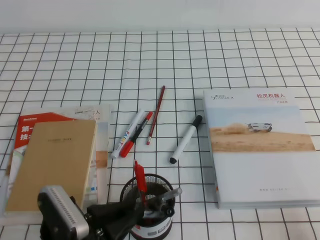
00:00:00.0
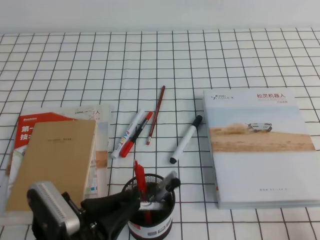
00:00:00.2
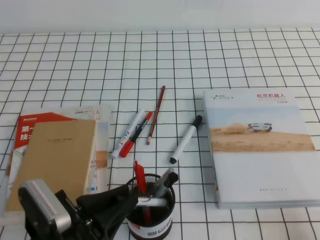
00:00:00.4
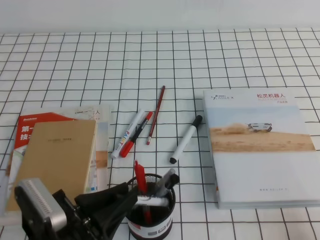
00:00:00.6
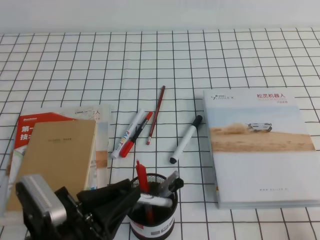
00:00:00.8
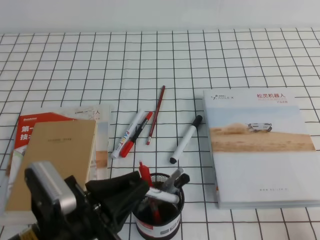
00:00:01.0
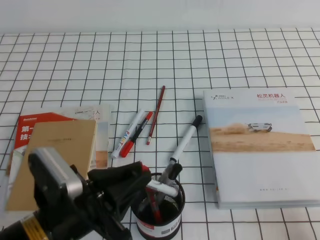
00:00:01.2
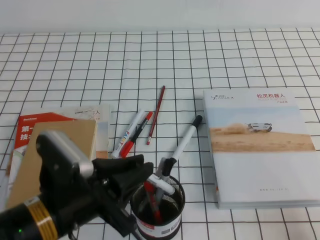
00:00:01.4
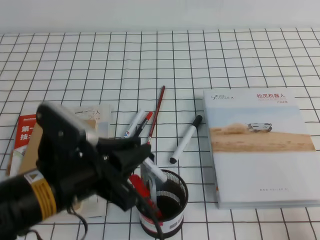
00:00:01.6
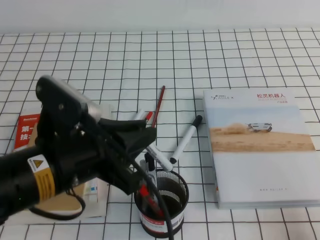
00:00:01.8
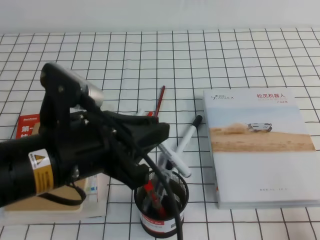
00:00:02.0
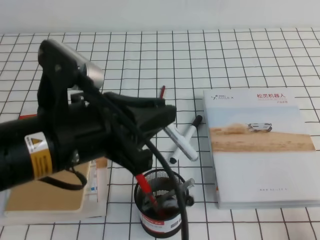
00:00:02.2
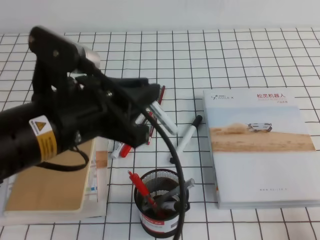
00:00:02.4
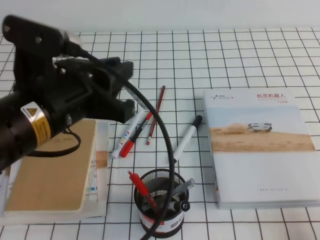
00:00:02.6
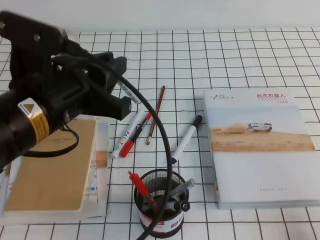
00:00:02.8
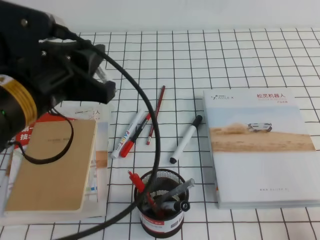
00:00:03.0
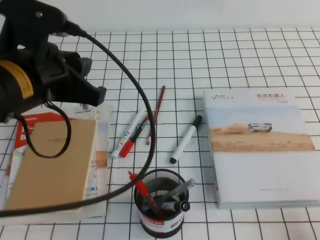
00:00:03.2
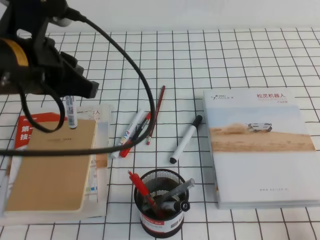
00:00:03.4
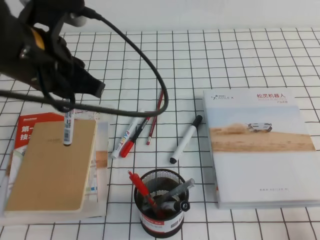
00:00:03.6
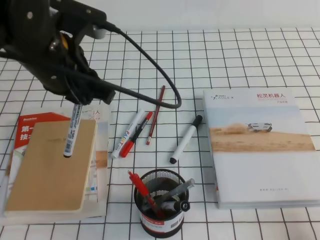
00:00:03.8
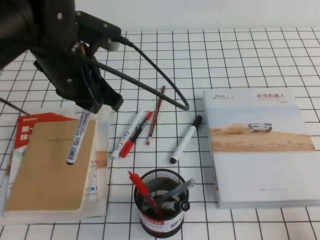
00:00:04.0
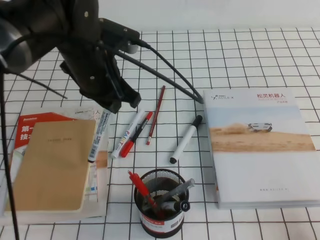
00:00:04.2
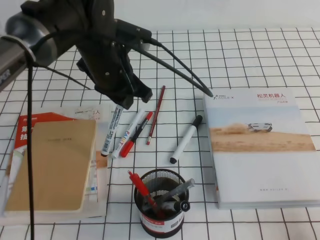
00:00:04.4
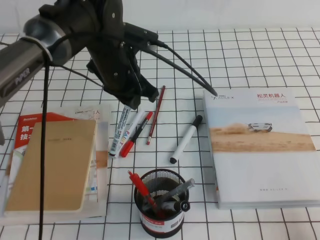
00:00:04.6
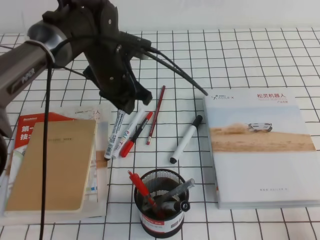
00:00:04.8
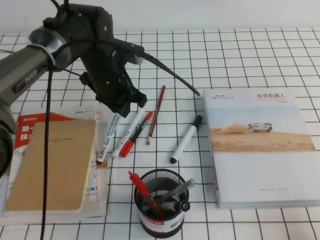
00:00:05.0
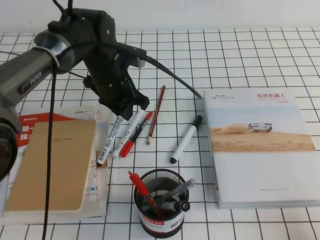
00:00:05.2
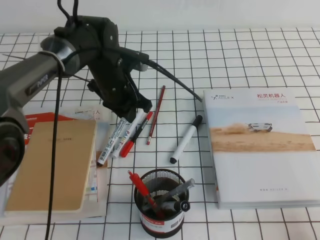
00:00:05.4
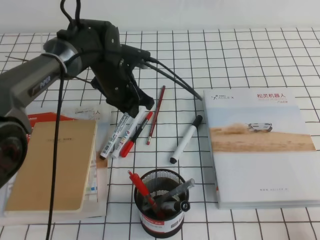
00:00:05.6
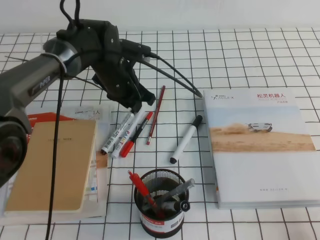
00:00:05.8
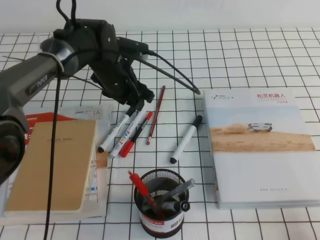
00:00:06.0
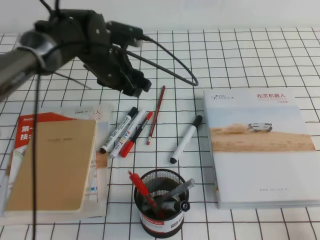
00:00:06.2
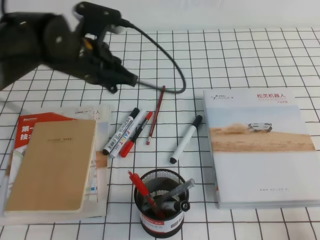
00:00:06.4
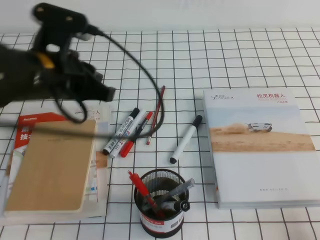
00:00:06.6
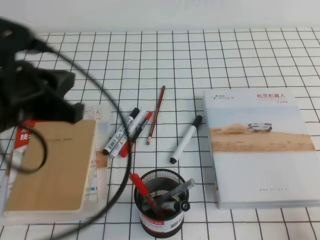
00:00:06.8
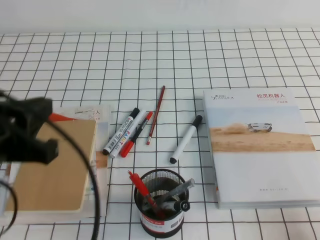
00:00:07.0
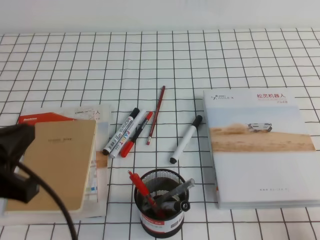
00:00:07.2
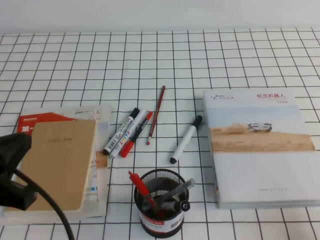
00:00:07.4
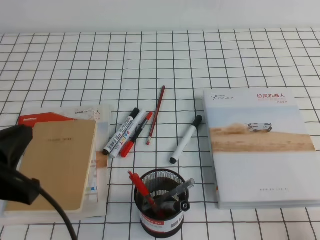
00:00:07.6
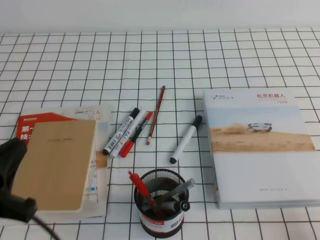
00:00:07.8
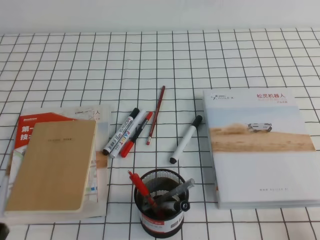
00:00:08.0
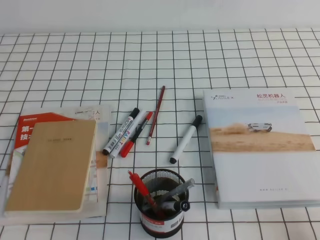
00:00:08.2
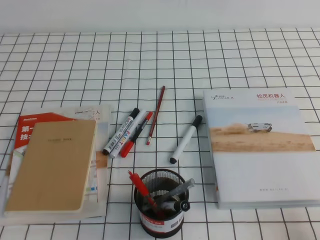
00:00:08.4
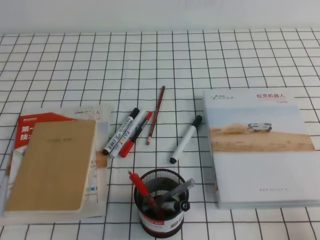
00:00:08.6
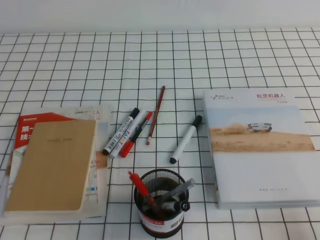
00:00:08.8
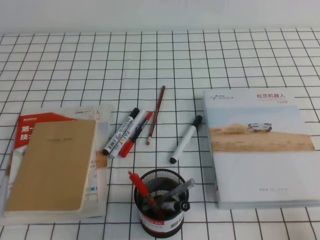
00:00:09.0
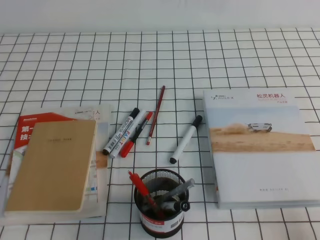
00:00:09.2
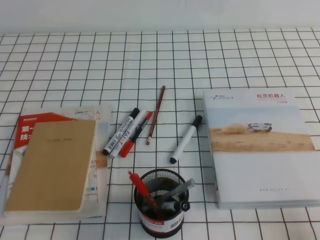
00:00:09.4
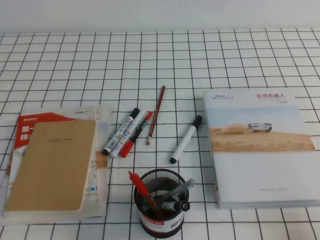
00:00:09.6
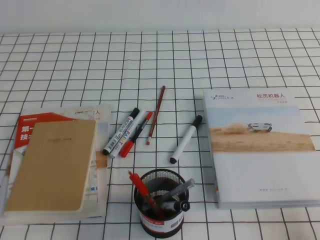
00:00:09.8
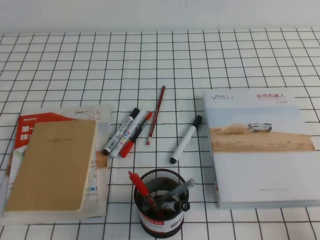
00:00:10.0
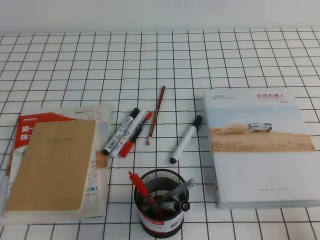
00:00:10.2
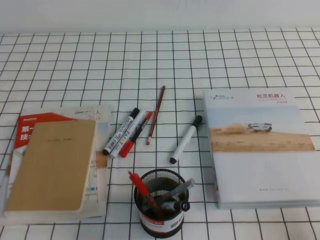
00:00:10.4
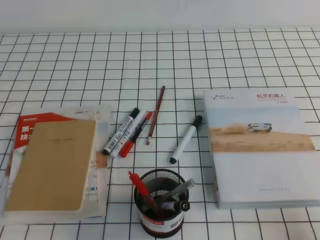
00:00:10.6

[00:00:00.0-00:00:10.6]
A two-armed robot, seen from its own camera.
Step, 00:00:00.0 to 00:00:10.6: Pick up the pen from the pen holder.
00:00:00.0 to 00:00:01.6: The left gripper is displaced upward by approximately 10 cm.
00:00:01.6 to 00:00:03.0: The left gripper heads upward and forward, covering approximately 10 cm.
00:00:03.0 to 00:00:04.6: The left gripper is displaced forward, downward and to the right by roughly 20 cm.
00:00:04.6 to 00:00:06.0: The left gripper moves downward and forward, some 10 cm, and opens its fingers.
00:00:06.0 to 00:00:07.6: The left gripper shifts roughly 35 cm backward and to the left, and closes its fingers.
00:00:07.6 to 00:00:09.0: The left gripper travels downward and backward by about 15 cm.
00:00:09.0 to 00:00:10.6: Both grippers stay put.

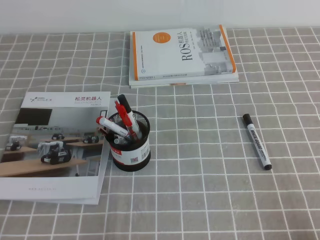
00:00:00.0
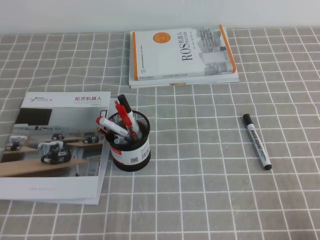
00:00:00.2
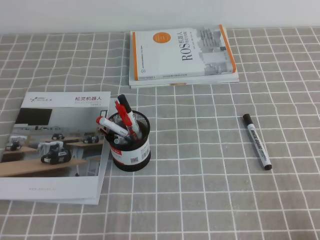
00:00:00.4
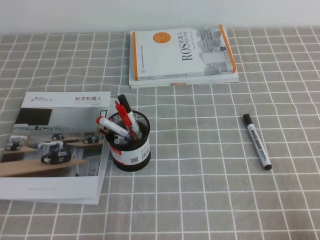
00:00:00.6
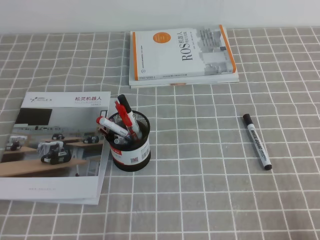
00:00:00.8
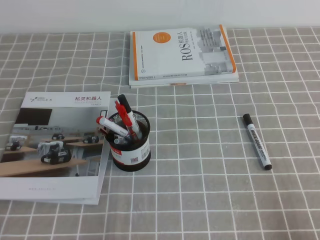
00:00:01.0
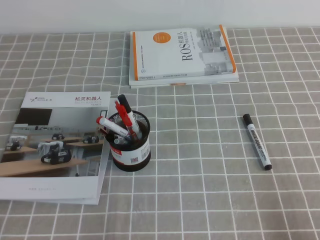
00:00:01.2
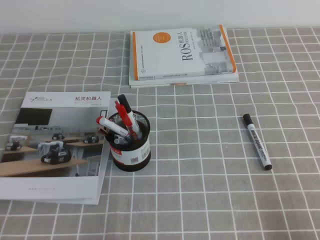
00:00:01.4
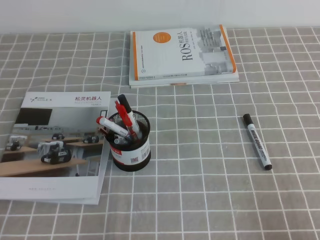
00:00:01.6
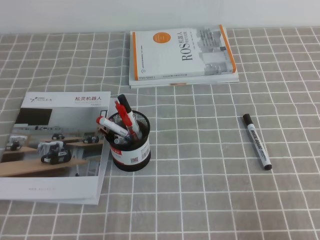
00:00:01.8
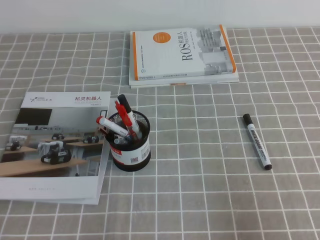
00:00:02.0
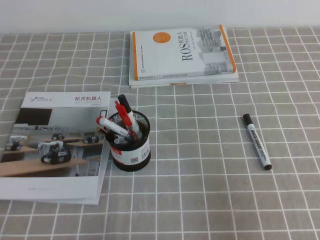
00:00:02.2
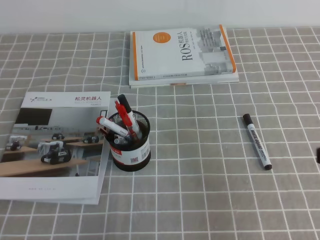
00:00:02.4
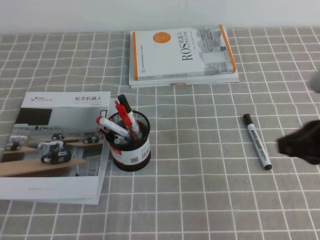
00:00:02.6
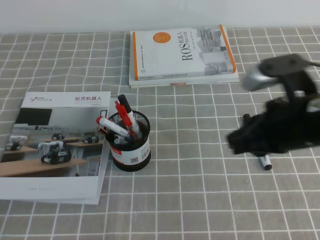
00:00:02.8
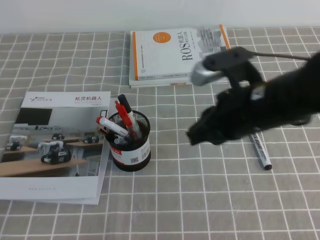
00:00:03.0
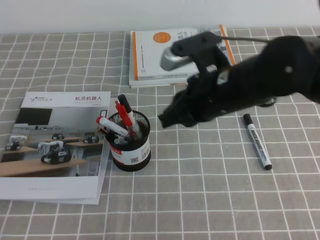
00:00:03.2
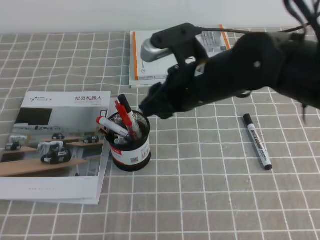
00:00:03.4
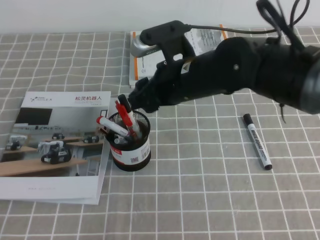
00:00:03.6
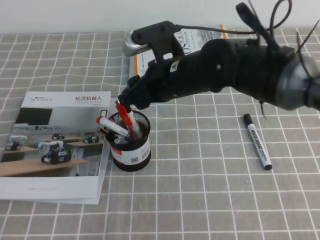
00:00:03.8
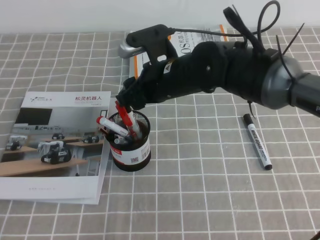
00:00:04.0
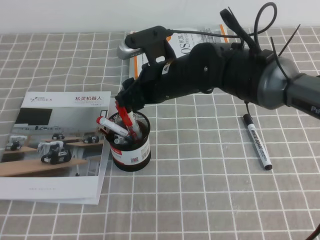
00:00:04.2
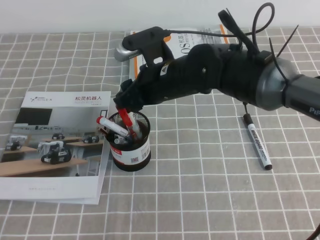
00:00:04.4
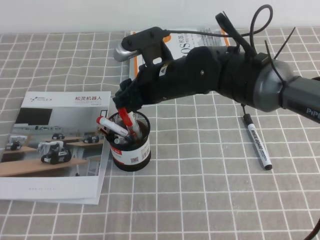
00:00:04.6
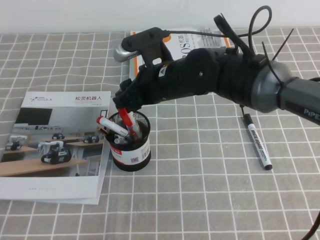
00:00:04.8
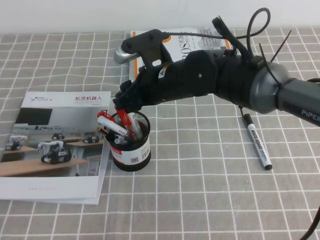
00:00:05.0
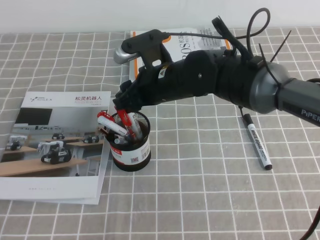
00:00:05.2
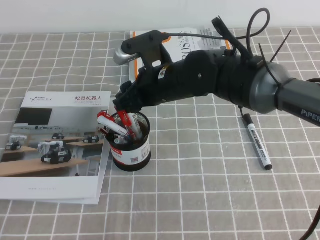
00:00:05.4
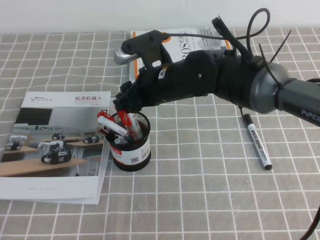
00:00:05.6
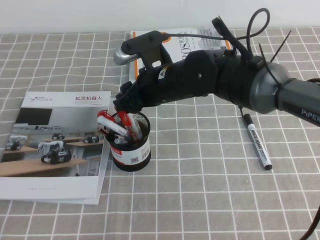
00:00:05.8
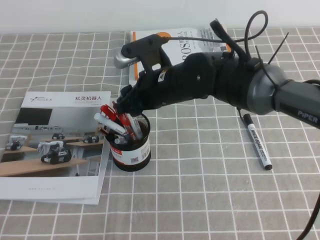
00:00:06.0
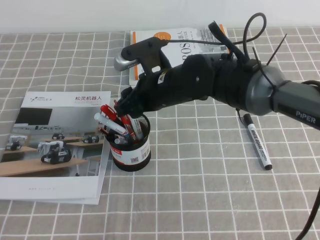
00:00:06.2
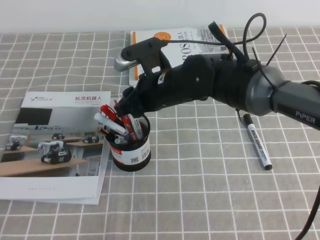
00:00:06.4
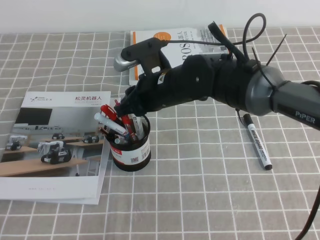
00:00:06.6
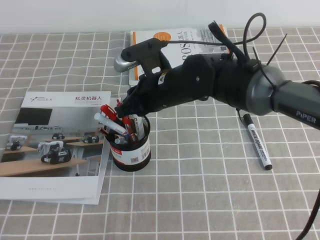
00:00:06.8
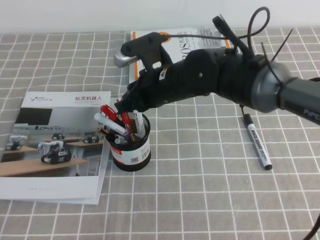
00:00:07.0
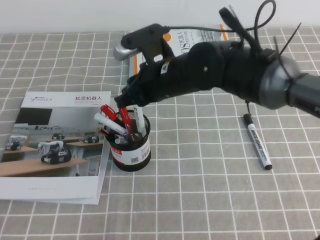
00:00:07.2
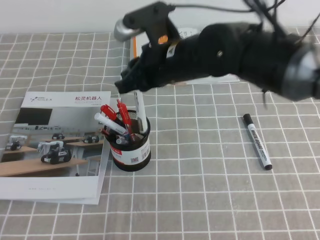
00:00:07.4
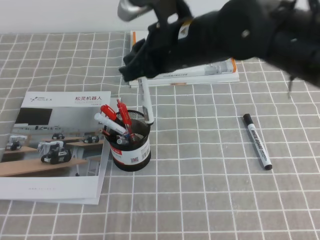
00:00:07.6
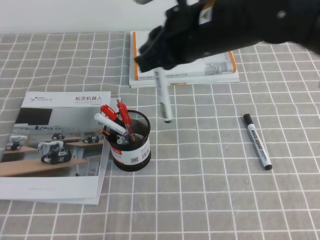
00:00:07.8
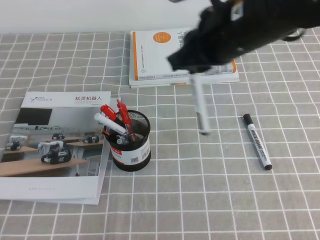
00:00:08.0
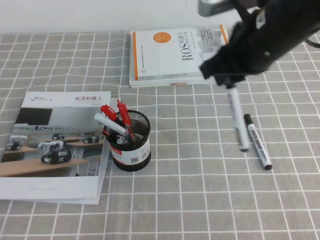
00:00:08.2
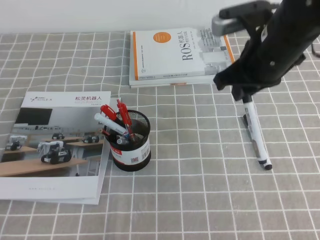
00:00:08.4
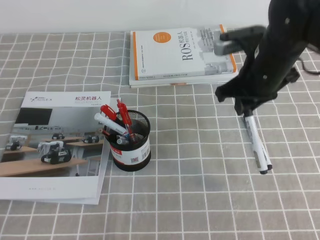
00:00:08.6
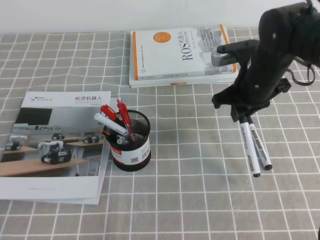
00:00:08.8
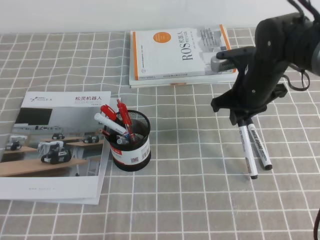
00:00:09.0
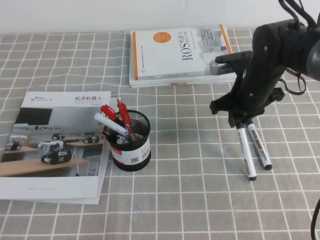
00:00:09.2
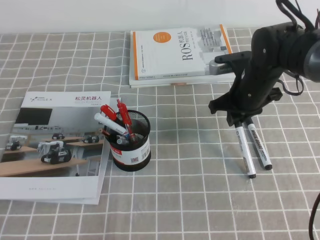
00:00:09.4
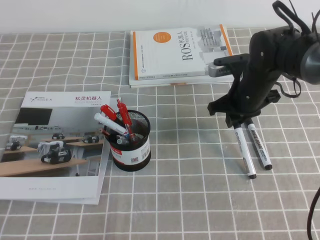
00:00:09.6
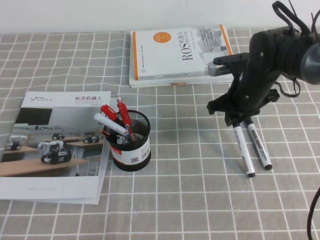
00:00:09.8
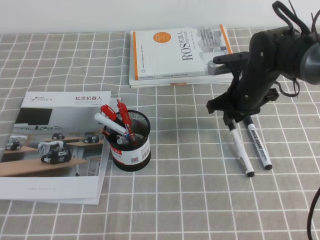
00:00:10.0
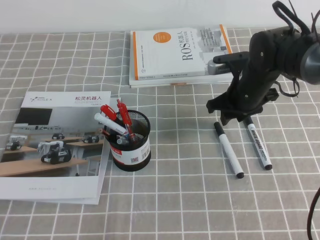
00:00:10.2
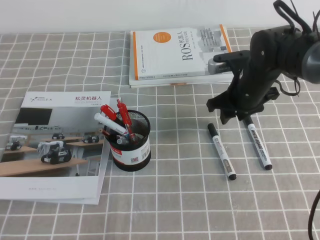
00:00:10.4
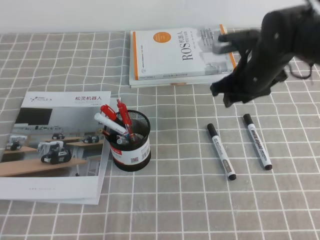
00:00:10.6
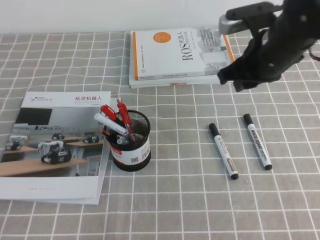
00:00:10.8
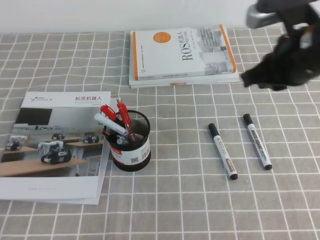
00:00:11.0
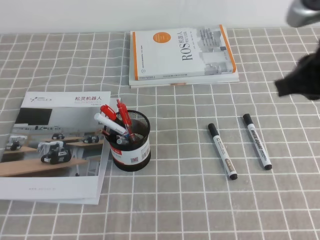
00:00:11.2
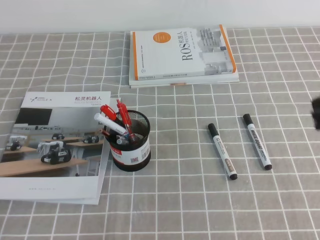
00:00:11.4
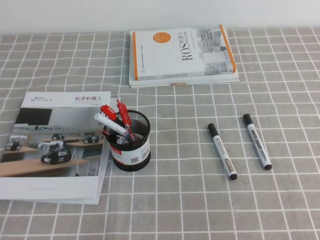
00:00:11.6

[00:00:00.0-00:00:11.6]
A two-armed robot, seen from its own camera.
00:00:01.4 to 00:00:02.8: The right gripper moves forward, to the left and upward, about 25 cm.
00:00:02.8 to 00:00:04.4: The right gripper shifts about 20 cm to the left and forward, and opens its fingers.
00:00:04.4 to 00:00:05.8: Both grippers stay about where they are.
00:00:05.8 to 00:00:07.2: The right gripper closes its fingers.
00:00:07.2 to 00:00:08.8: The right gripper moves to the right, about 15 cm.
00:00:08.8 to 00:00:10.2: The right gripper shifts approximately 5 cm downward, and opens up.
00:00:10.2 to 00:00:11.6: The right gripper moves backward, upward and to the right, about 35 cm, and closes up.
